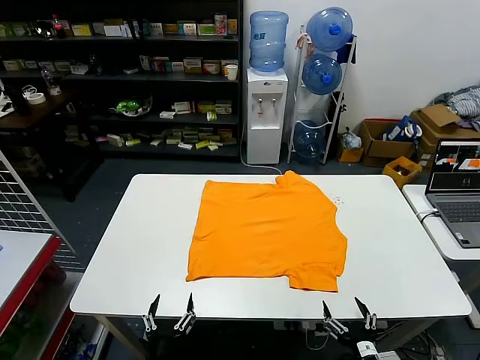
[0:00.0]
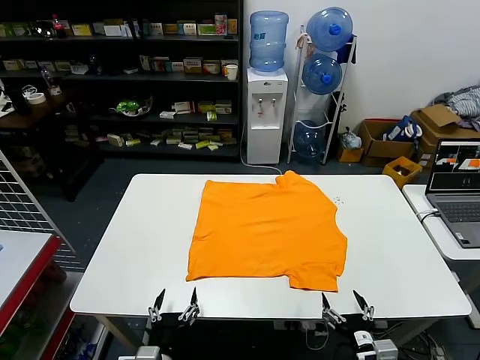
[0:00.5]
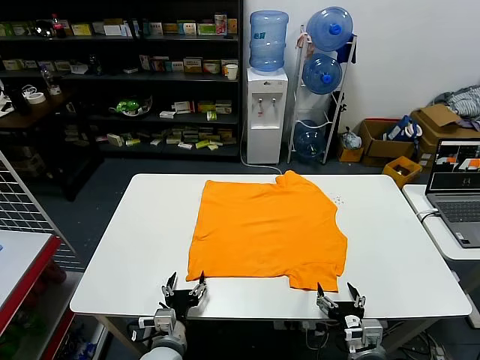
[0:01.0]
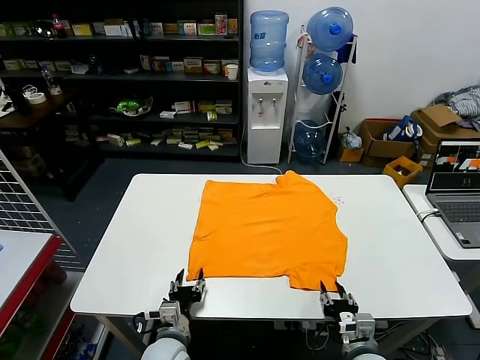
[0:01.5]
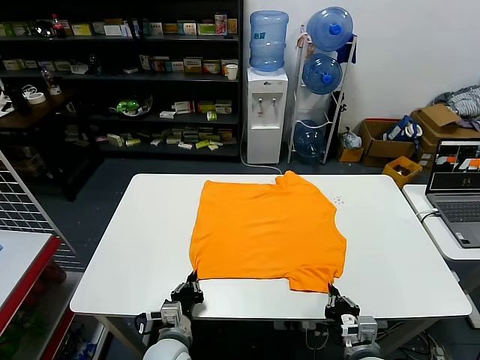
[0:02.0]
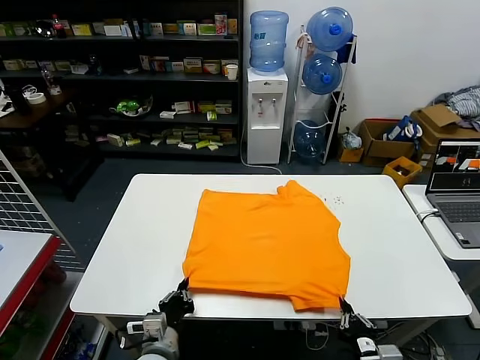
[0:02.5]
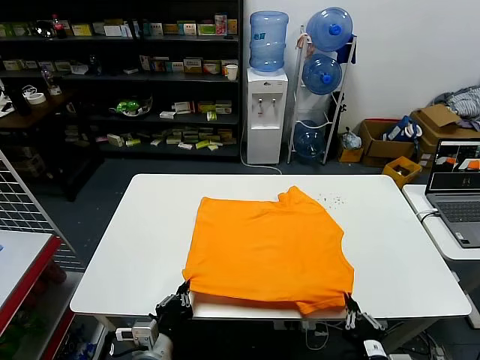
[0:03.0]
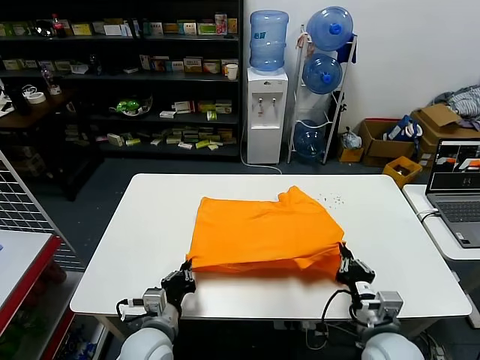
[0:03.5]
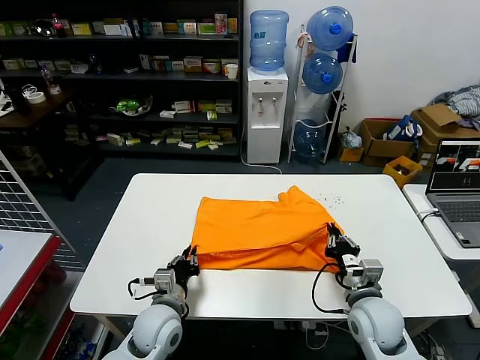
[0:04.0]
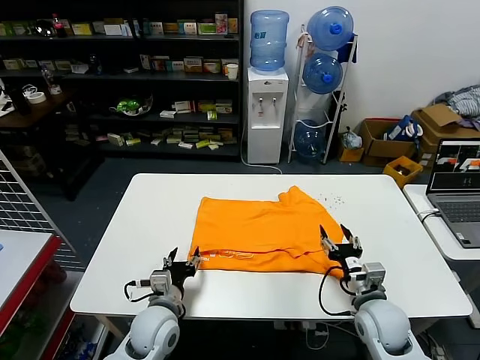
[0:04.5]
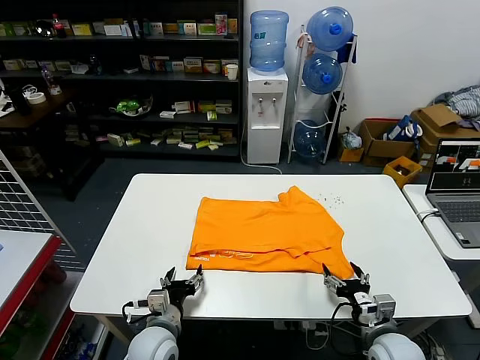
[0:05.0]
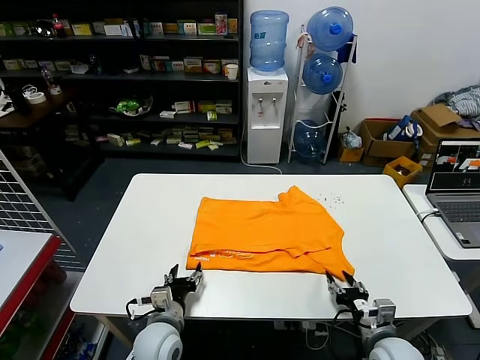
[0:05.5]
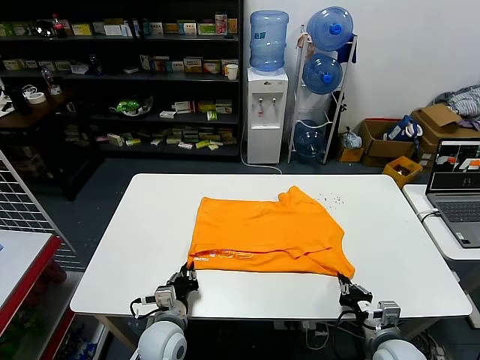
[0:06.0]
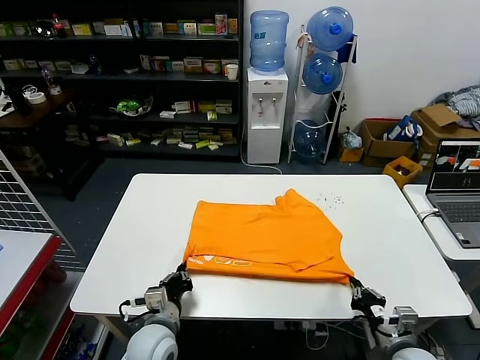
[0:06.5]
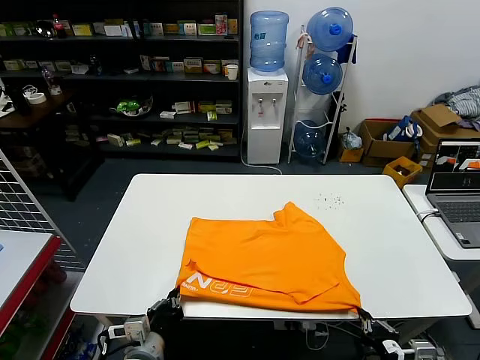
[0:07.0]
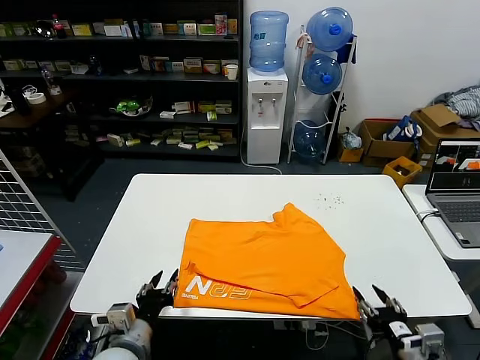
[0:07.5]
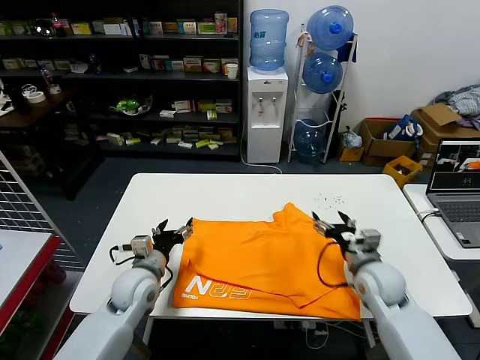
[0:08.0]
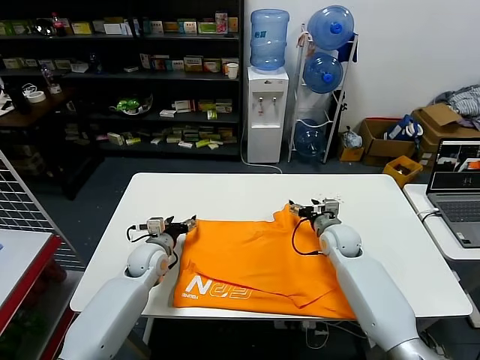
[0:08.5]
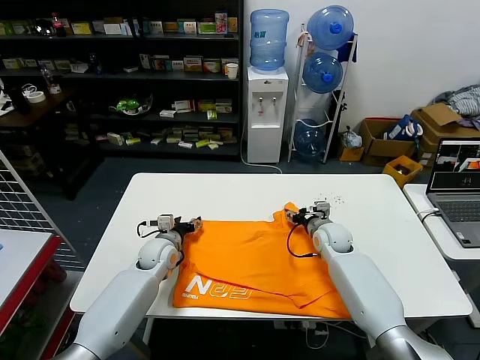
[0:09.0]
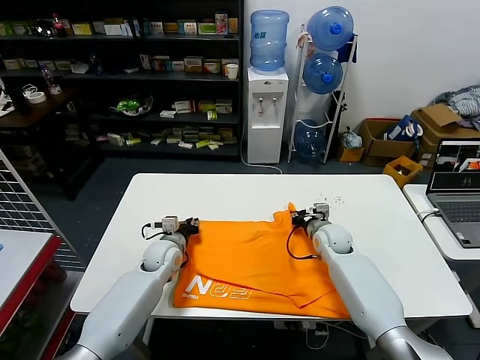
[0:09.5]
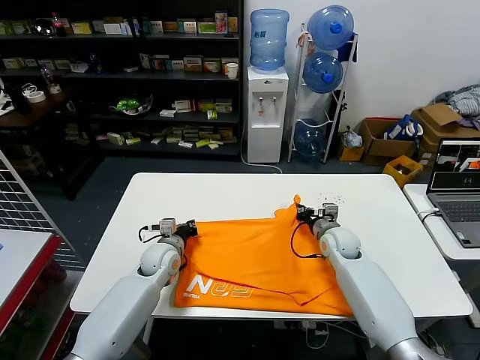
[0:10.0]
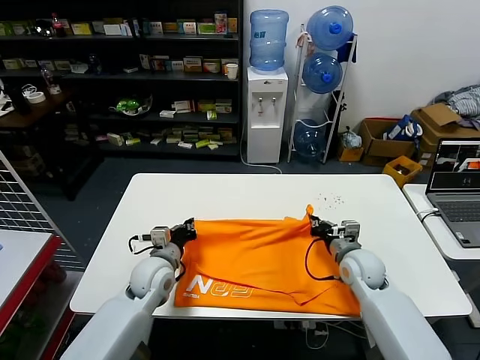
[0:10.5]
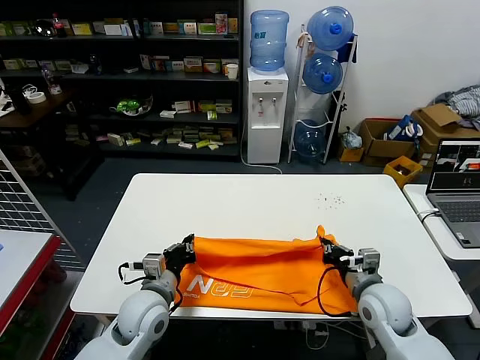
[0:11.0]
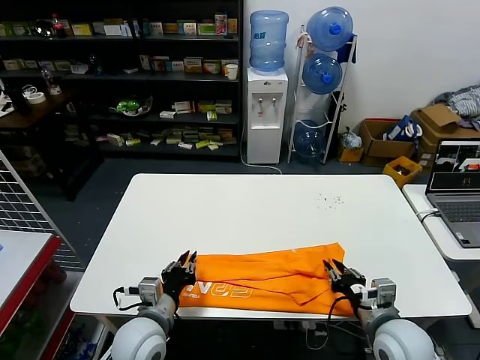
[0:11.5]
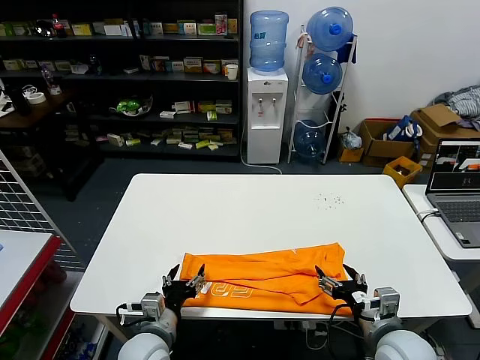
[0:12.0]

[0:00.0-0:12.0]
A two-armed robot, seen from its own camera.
Task of the whole recording: fold and organize the clothes.
Step, 0:00.0 to 0:02.0: use both grippers simultaneously to clamp the lower edge of the clothing fabric.
Step, 0:02.5 to 0:04.5: use both grippers to drag the lower edge of the fabric forward and fold it over the upper edge.
Step, 0:05.0 to 0:07.5: Drag the clothes downward with both gripper.
Step, 0:08.0 to 0:09.5: use both grippers simultaneously to clamp the upper edge of the clothing fabric.
Step, 0:10.0 to 0:11.5: use both grippers to drag the upper edge of the fabric backward and fold it over the lower edge.
0:02.0 to 0:04.0: The left gripper goes about 5 cm upward; the right gripper goes roughly 10 cm forward and upward.
0:04.0 to 0:06.0: The right gripper shifts approximately 10 cm downward, backward and to the right, and opens and closes again; the left gripper ends up some 5 cm from where it was, and opens, then closes once more.
0:06.0 to 0:08.0: The left gripper is displaced upward, forward and to the left by about 15 cm, and opens its fingers. The right gripper goes roughly 20 cm forward and upward, and opens its fingers.
0:08.0 to 0:10.0: The two grippers go approximately 10 cm forward. The right gripper closes up. The left gripper closes up.
0:10.0 to 0:12.0: Both grippers travel together backward, roughly 25 cm. The right gripper opens up. The left gripper opens up.

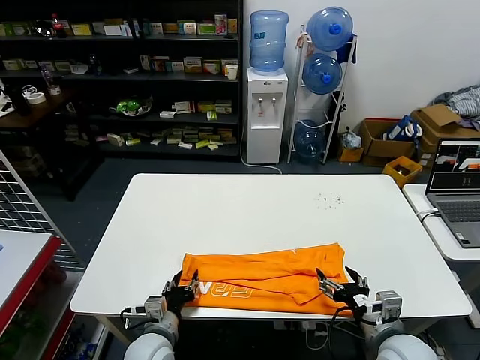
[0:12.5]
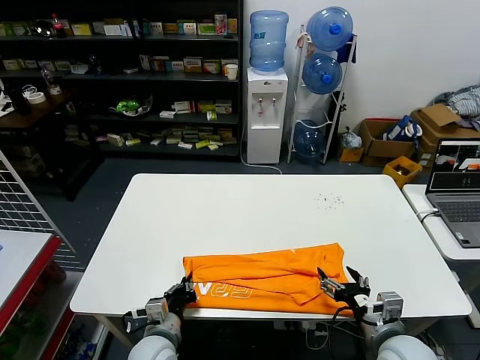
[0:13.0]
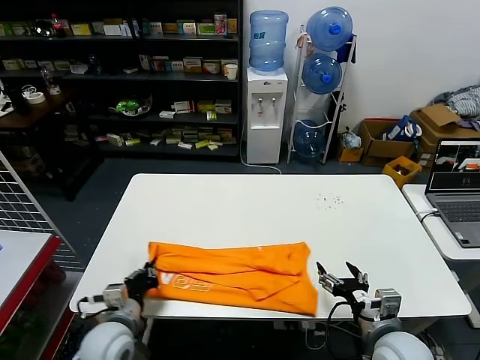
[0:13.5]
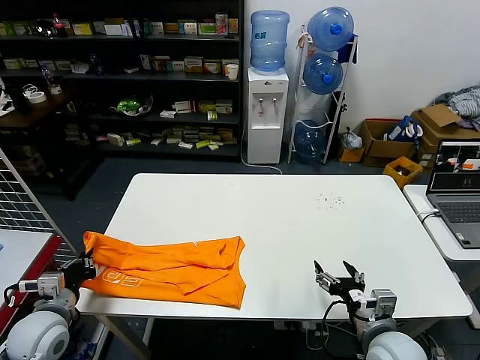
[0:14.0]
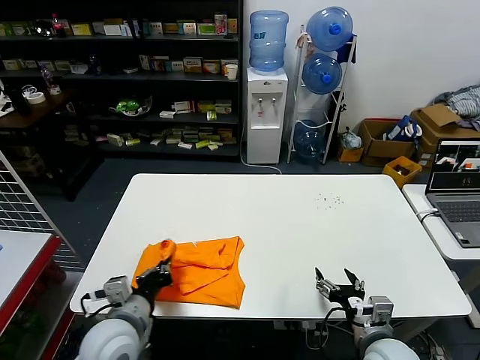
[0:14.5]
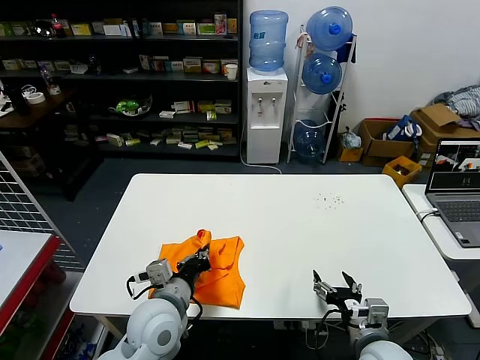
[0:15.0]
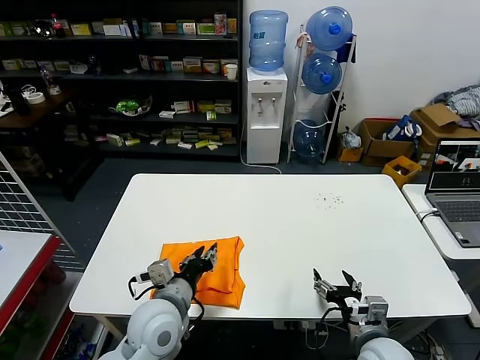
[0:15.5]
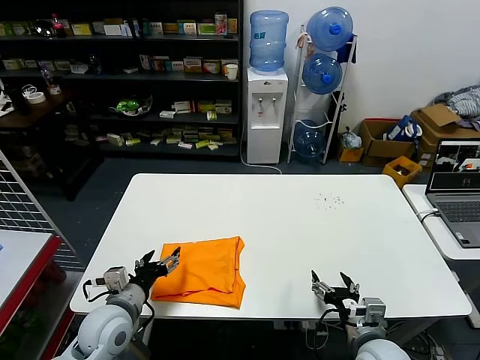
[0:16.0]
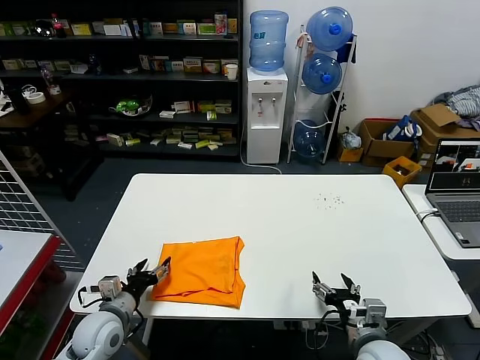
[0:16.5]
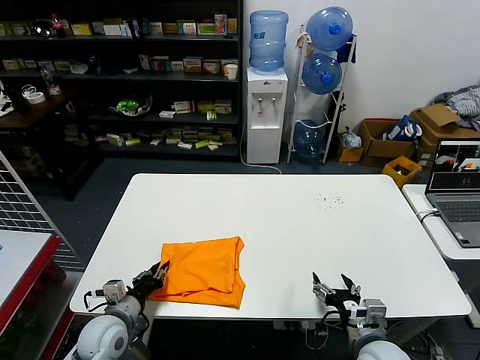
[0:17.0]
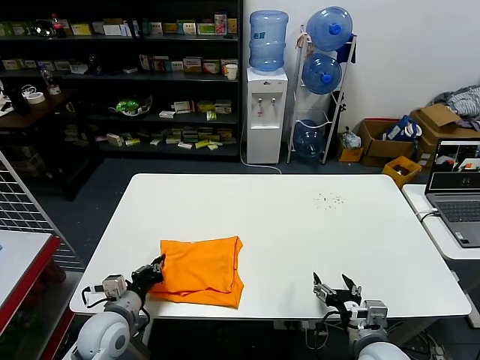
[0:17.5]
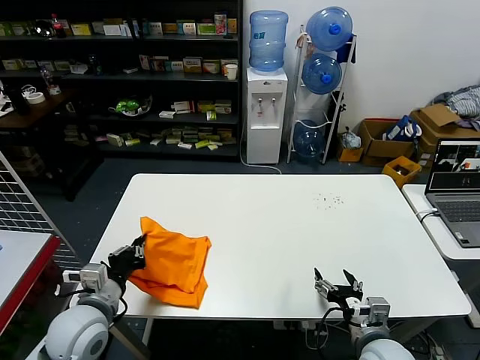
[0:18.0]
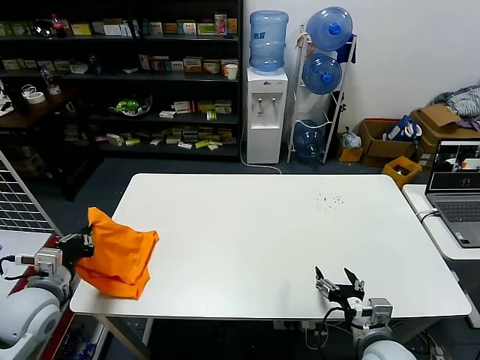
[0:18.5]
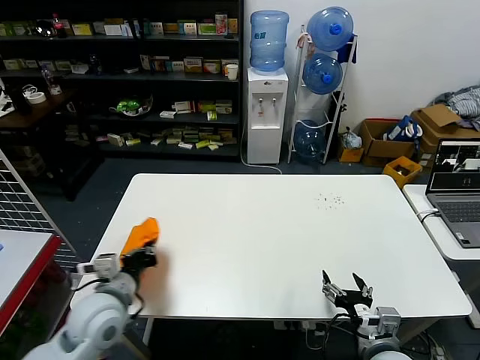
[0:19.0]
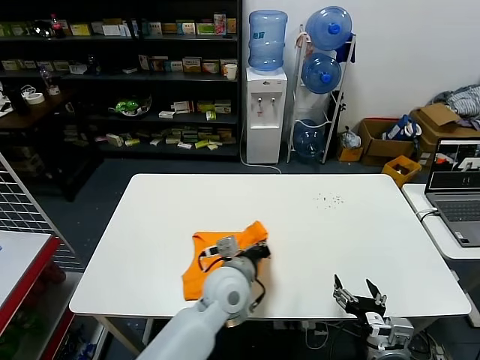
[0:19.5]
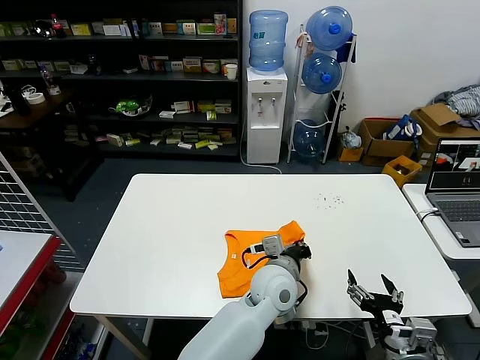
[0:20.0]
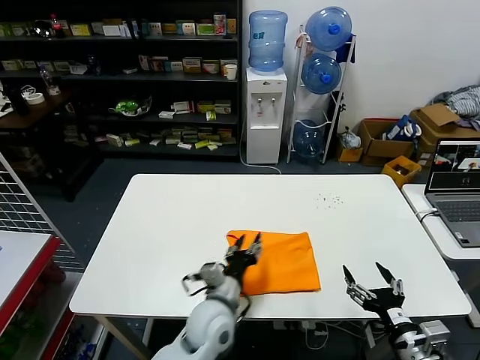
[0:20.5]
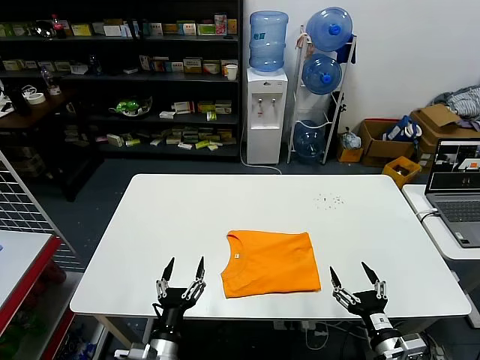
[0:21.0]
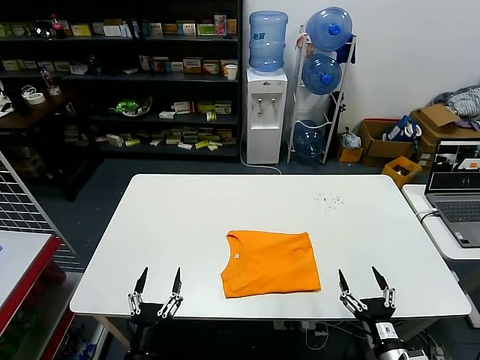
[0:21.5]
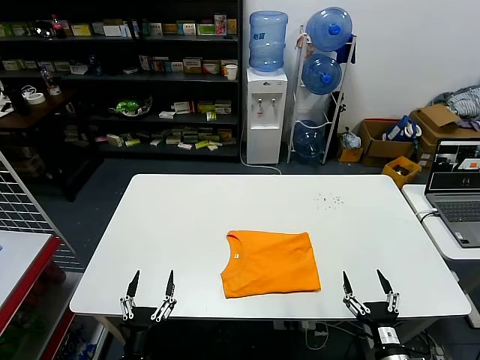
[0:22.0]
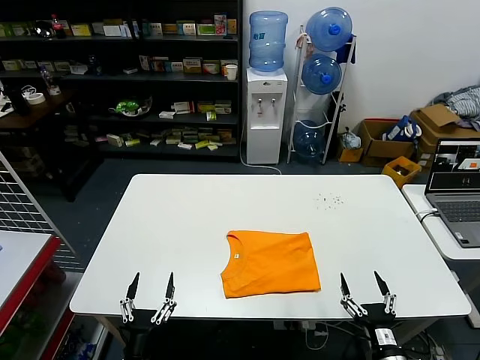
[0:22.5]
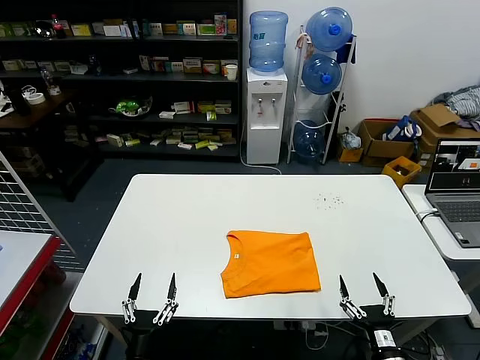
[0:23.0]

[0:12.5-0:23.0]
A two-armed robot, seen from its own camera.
Task of the whole recording: fold and organize the clothes.
Step, 0:12.5 to 0:13.0: use the left gripper to clamp the left edge of the fabric.
Step, 0:13.5 to 0:15.5: use the left gripper to drag the left edge of the fabric to the left and folds it over the right edge.
Step, 0:16.0 to 0:20.0: Flip the folded clothes over with left gripper.
0:12.5 to 0:14.5: The left gripper is displaced upward by approximately 10 cm, travels to the left and back again, about 20 cm each way, and closes up.
0:14.5 to 0:16.5: The left gripper moves downward and to the left, some 10 cm, and opens up.
0:16.5 to 0:19.0: The left gripper travels upward by roughly 10 cm, and closes.
0:19.0 to 0:21.0: The left gripper goes roughly 15 cm downward and backward, moves about 35 cm to the right and comes back, and opens up.
0:21.0 to 0:23.0: The left gripper is displaced backward by some 5 cm, while the right gripper goes roughly 5 cm downward.

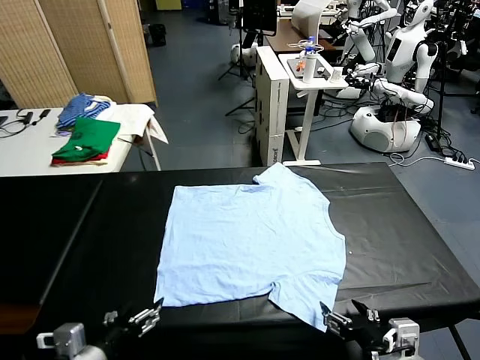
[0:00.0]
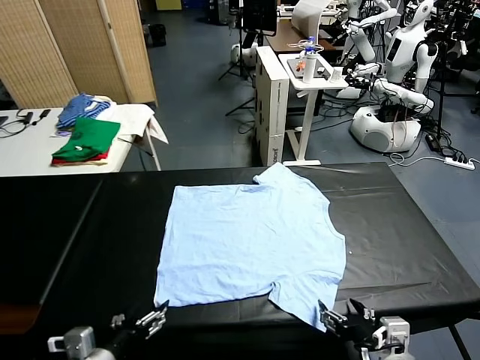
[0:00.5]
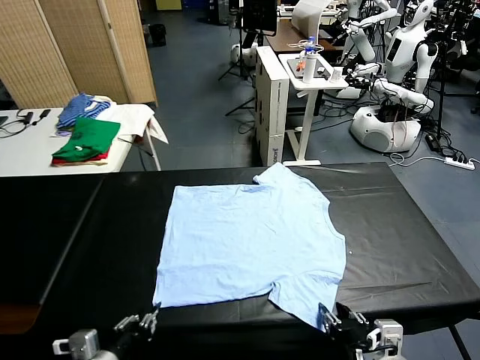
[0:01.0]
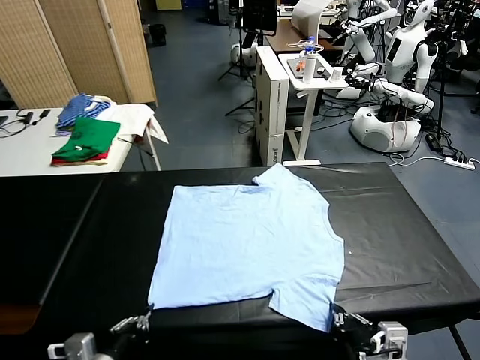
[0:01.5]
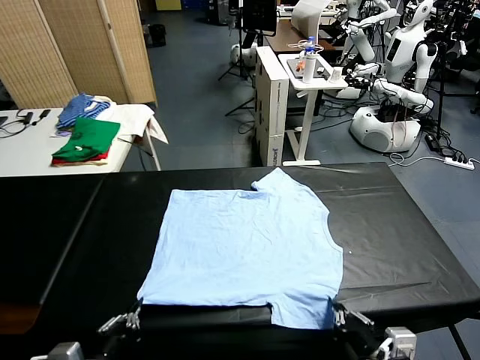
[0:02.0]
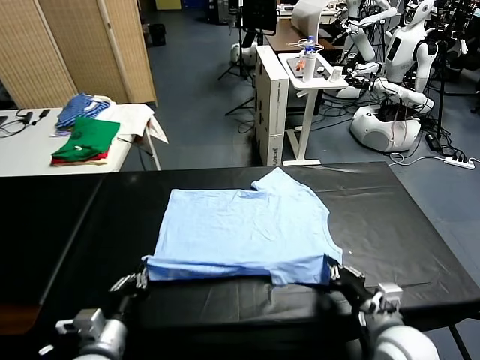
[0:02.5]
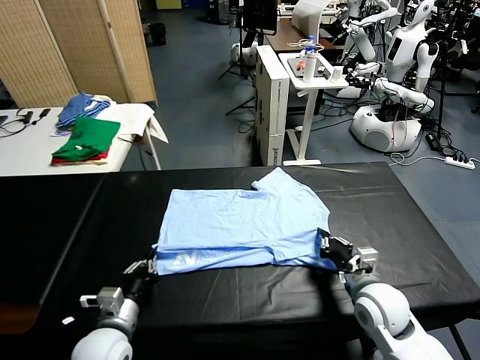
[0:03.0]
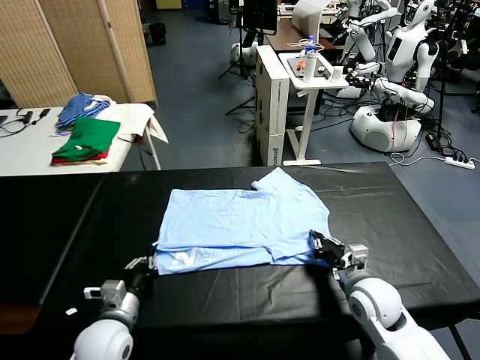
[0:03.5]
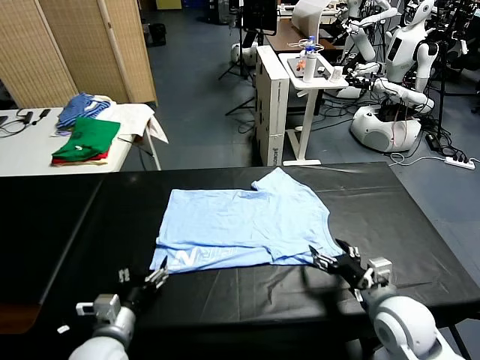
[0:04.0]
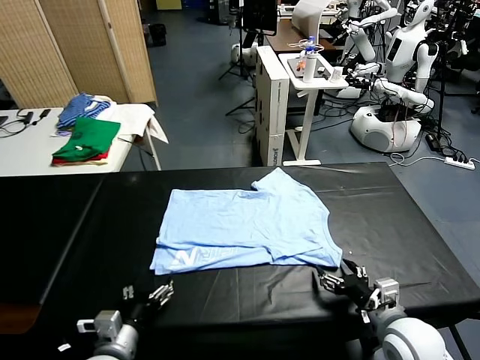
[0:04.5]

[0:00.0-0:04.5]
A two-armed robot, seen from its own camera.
Task of the whole recording: fold and organize the clothes.
Step, 0:00.0 to 0:01.0: use both grippers simultaneously to clamp the lower edge of the clothing fabric.
Step, 0:02.0 to 0:03.5: use both grippers to drag the lower edge of the fabric forward and fold it over the upper edge.
0:02.0 to 0:04.5: The left gripper is displaced forward and downward by some 10 cm, and opens, while the right gripper reaches about 10 cm forward, then returns, and opens.
